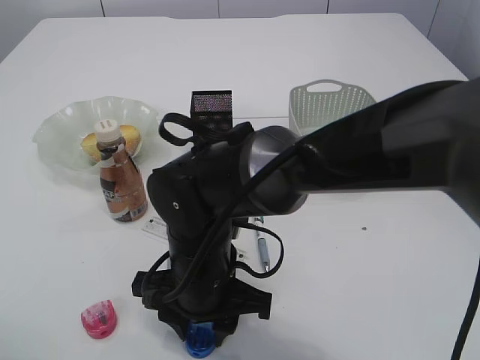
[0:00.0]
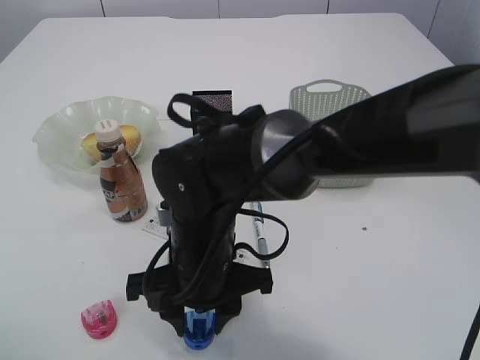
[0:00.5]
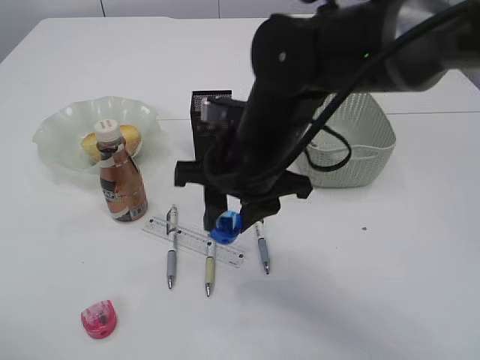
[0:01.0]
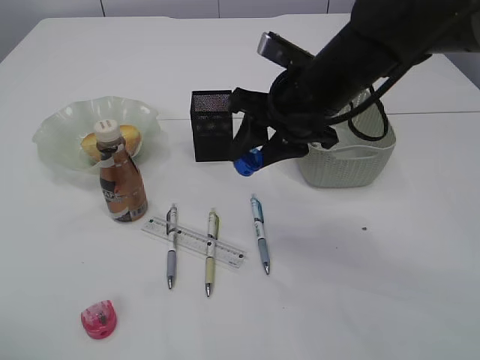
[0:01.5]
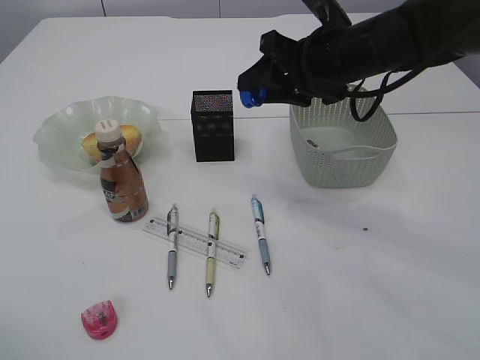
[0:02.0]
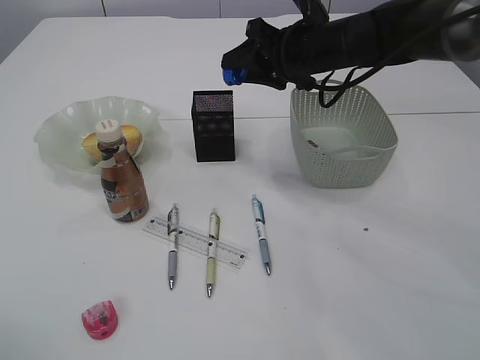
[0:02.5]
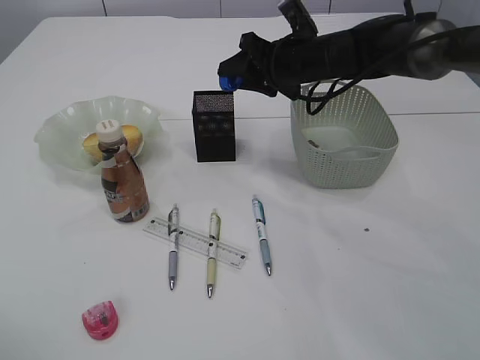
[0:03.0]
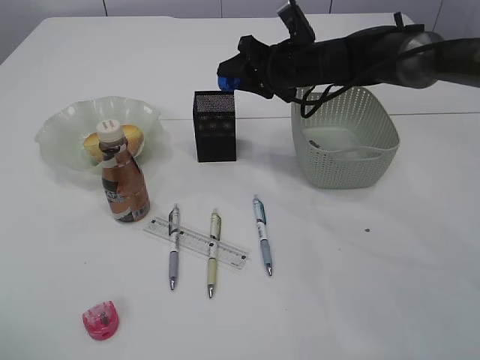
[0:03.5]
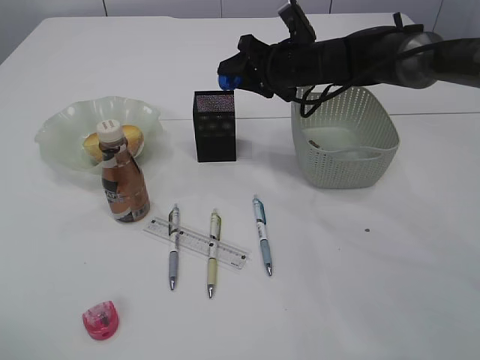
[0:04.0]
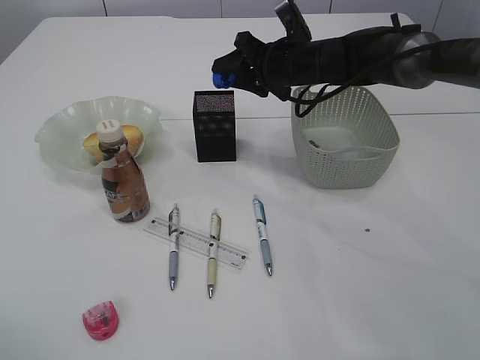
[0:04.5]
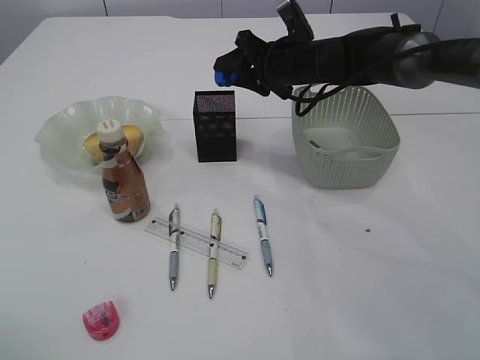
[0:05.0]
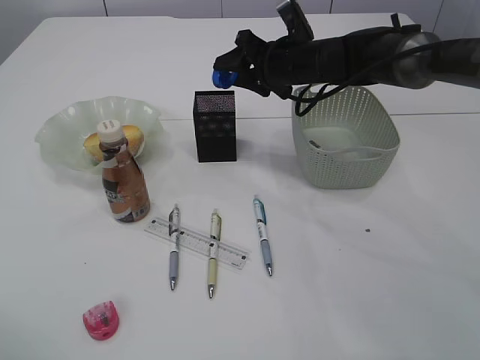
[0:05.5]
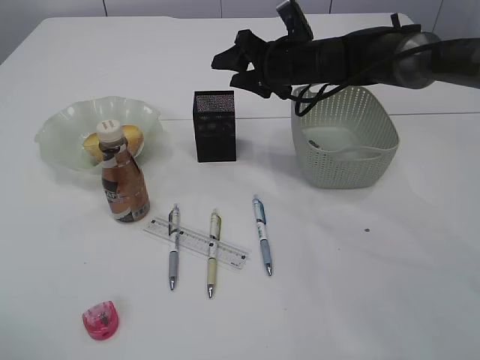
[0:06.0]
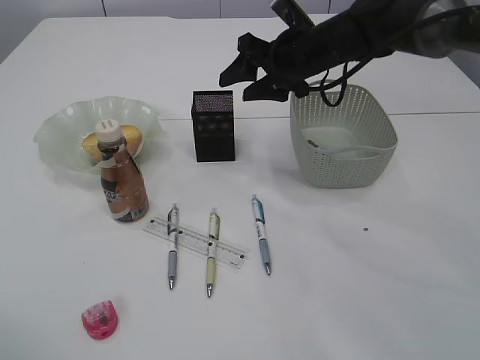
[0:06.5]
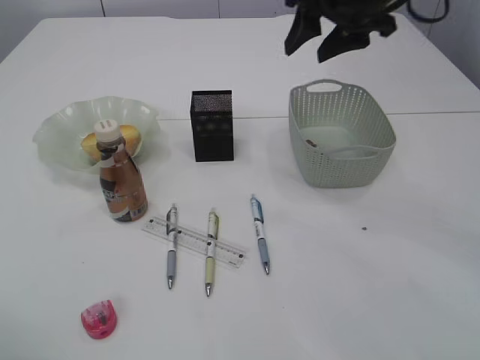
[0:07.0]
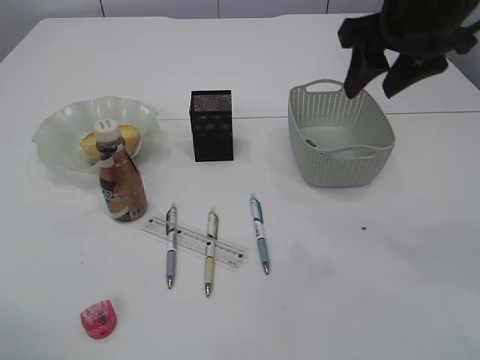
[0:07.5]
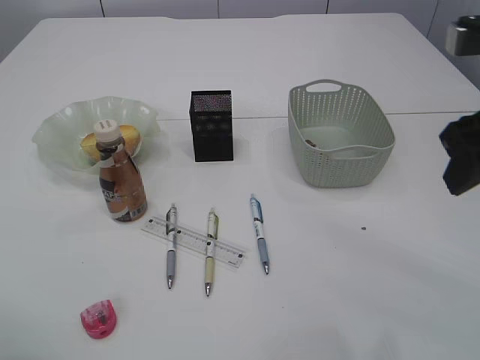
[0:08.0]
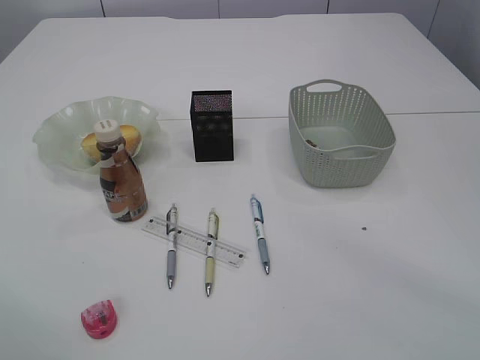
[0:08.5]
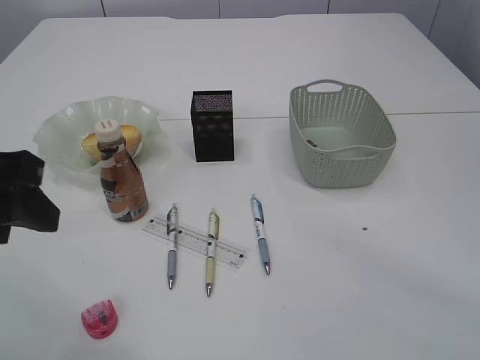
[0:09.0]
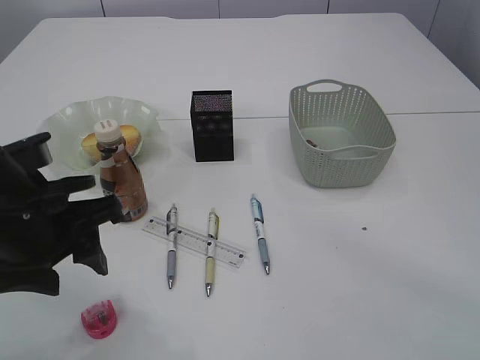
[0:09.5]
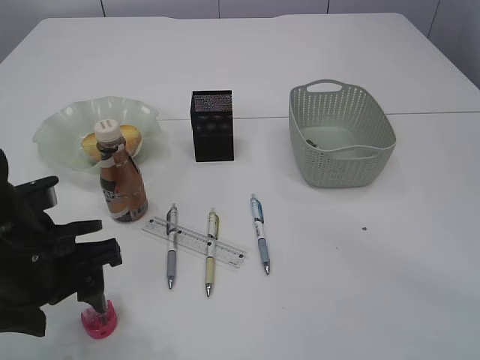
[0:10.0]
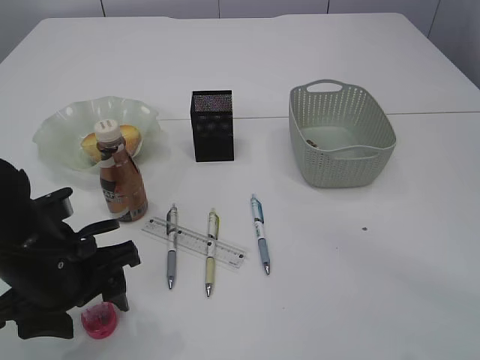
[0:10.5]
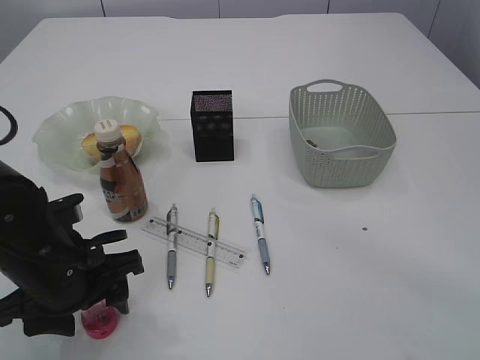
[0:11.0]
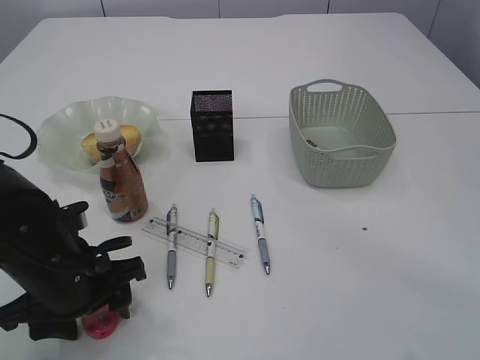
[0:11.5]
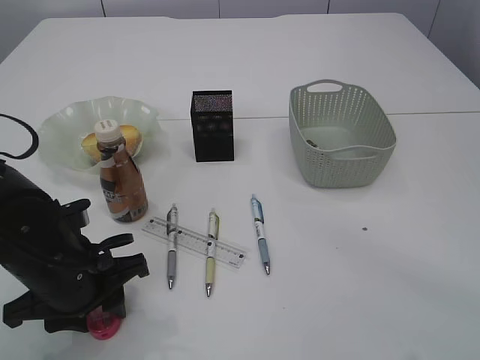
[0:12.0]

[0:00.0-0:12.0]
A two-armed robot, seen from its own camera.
Step, 1.0 to 6.0 s: Place the blue pencil sharpener into the pen holder.
0.0 to 2.0 s: The right gripper heads to the right, forward and upward, covering about 25 cm.
2.0 to 4.0 s: The right gripper heads forward and downward, covering some 10 cm.
4.0 to 6.0 s: Both grippers stay about where they are.
6.0 to 8.0 s: The right gripper shifts about 30 cm backward and to the right.
8.0 to 10.0 s: The left gripper heads downward and to the right, covering about 15 cm.
10.0 to 12.0 s: The left gripper shifts some 5 cm downward, and closes its fingers.

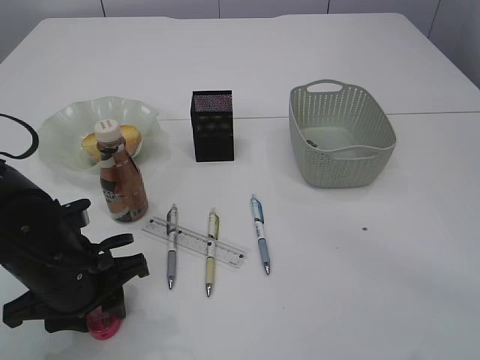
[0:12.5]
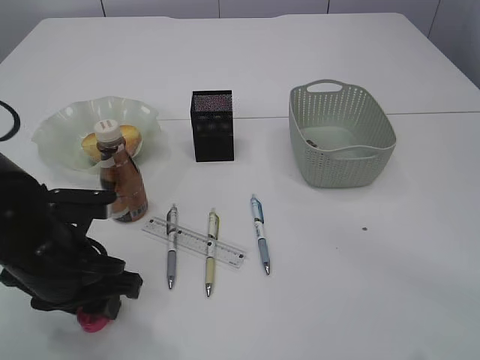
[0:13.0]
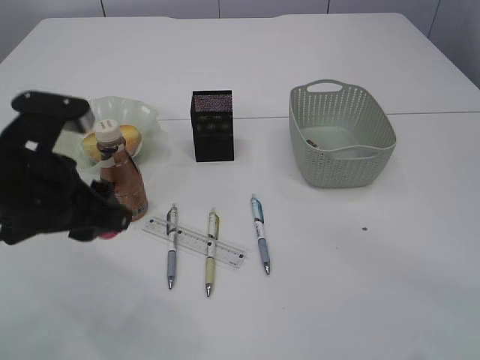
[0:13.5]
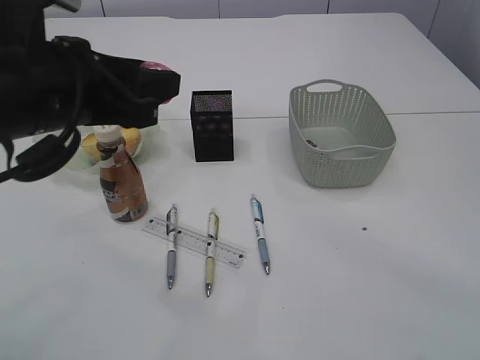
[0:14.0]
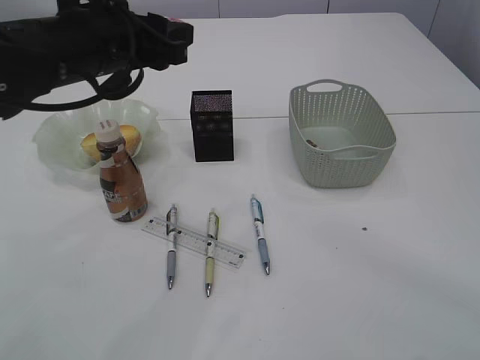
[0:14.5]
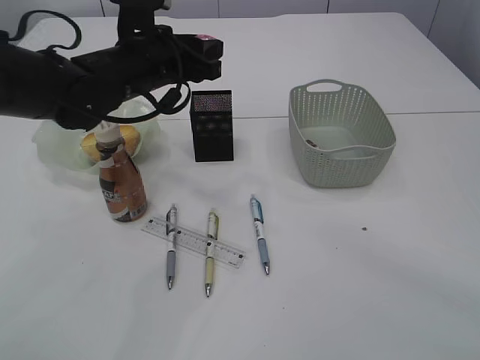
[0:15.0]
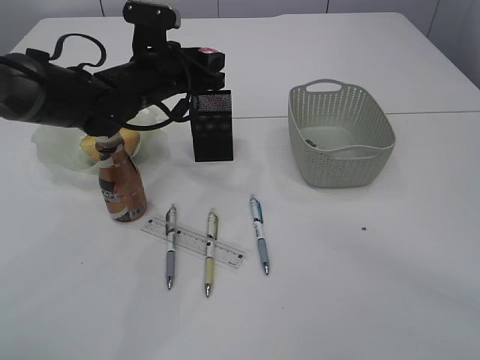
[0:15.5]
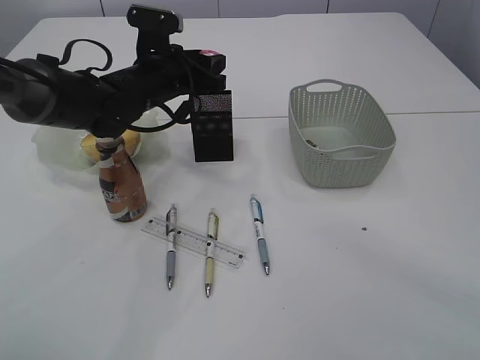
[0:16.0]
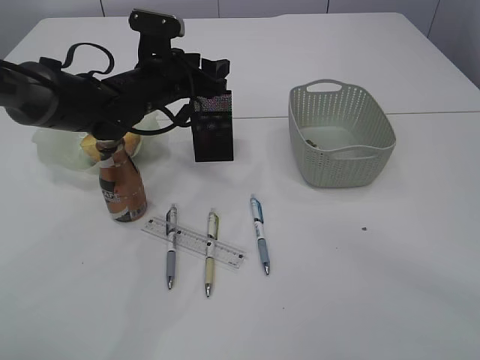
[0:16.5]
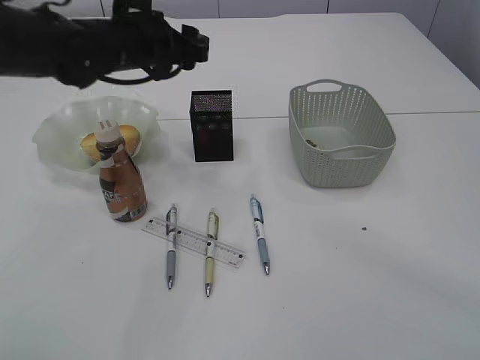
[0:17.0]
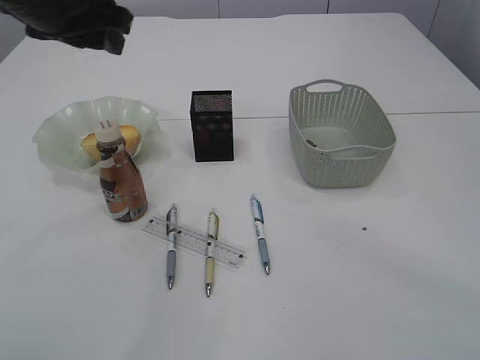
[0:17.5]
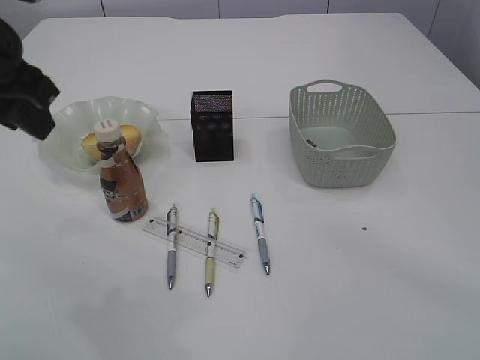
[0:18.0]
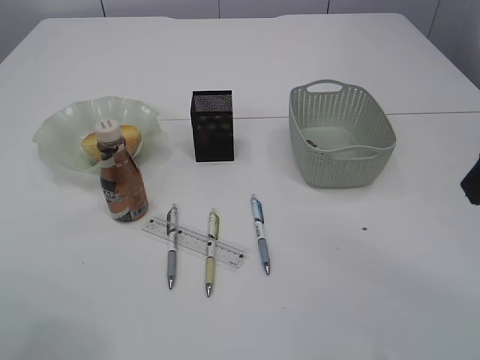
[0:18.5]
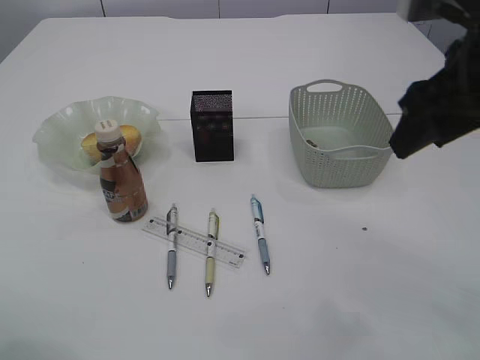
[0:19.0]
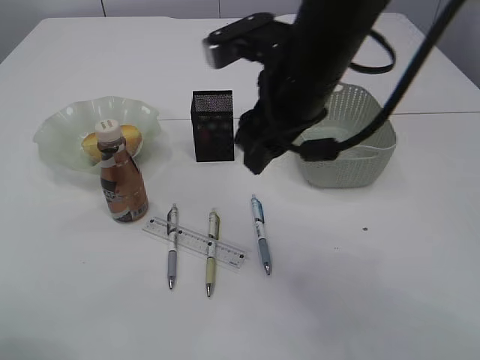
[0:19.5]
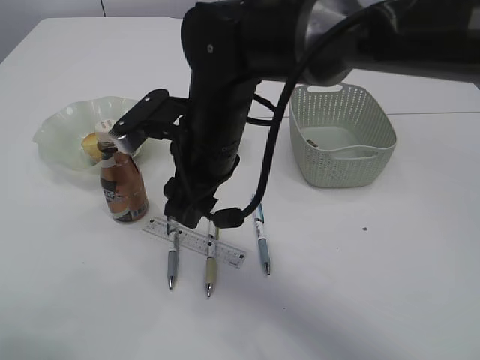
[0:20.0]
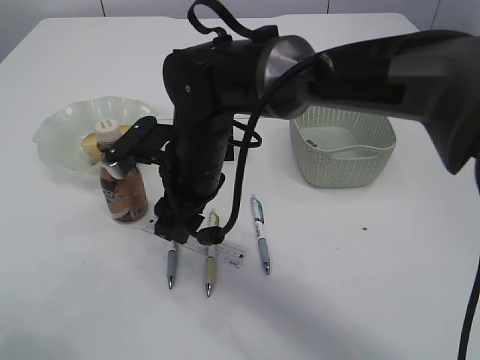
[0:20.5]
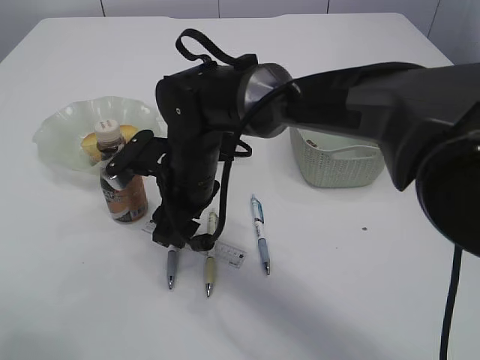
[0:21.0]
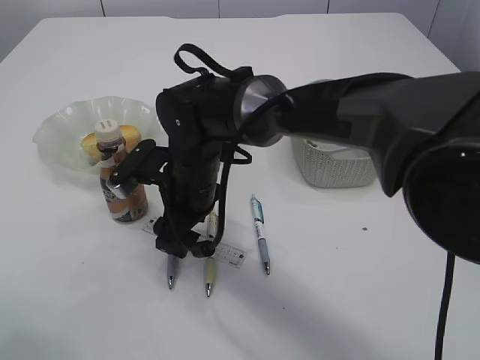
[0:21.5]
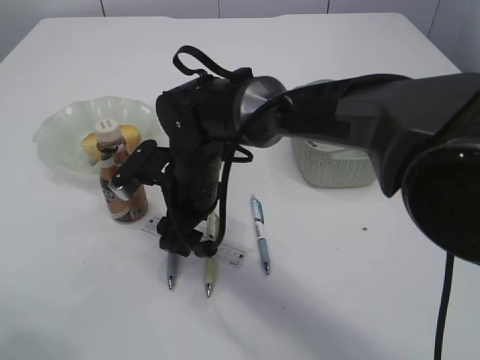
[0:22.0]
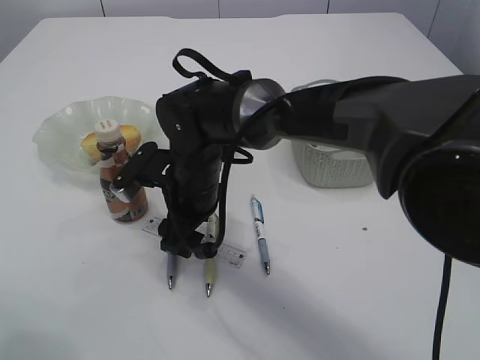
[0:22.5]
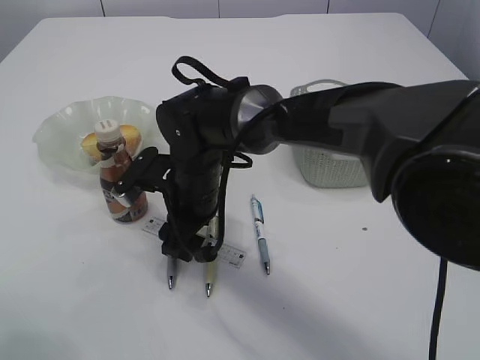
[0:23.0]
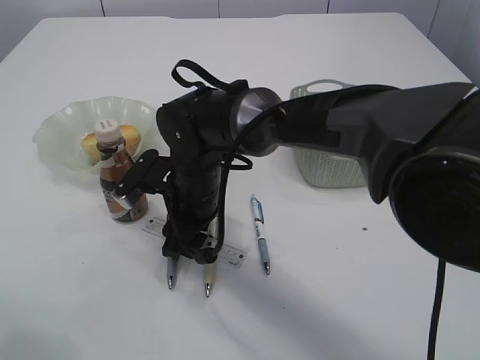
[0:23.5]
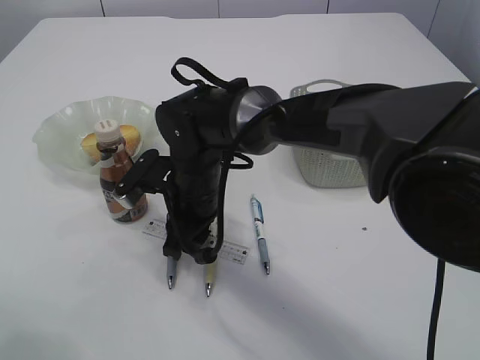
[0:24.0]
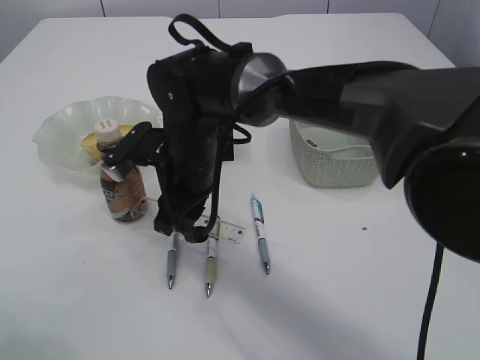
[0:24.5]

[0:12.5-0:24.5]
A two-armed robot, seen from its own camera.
Step, 13.5 to 16.5 s: Place the red pencil sharpener into the pen holder.
12.5 to 14.5 s: The left gripper shifts some 20 cm upward and forward.
14.5 to 16.5 s: The left gripper travels forward and downward by some 15 cm, and opens up.
16.5 to 18.5 s: The left gripper moves backward, to the left and upward, roughly 30 cm, and closes its fingers.
18.5 to 20.5 s: The left gripper ends up about 5 cm from where it was; the right gripper moves to the left, forward and downward, roughly 35 cm.
22.5 to 24.5 s: The right gripper closes its fingers.

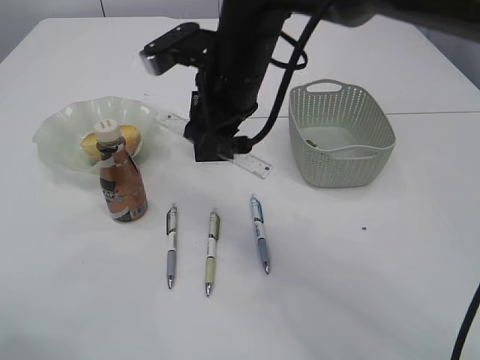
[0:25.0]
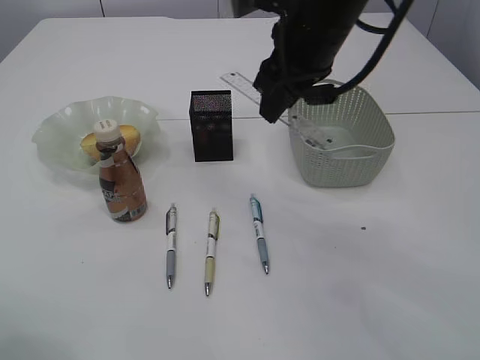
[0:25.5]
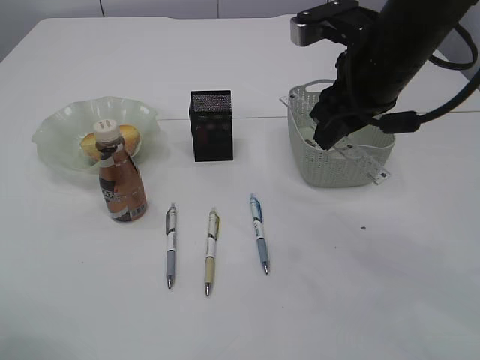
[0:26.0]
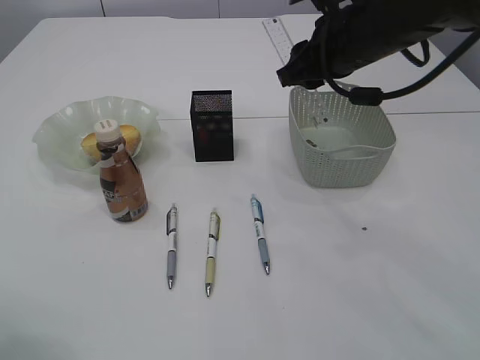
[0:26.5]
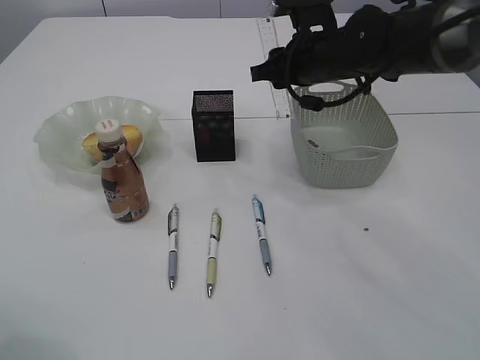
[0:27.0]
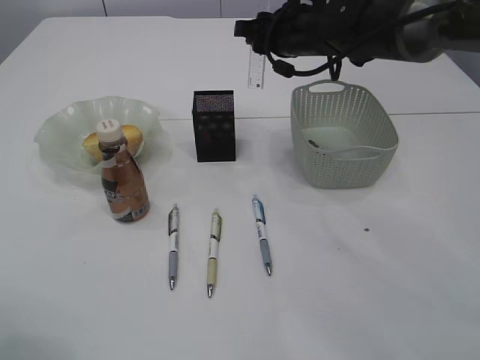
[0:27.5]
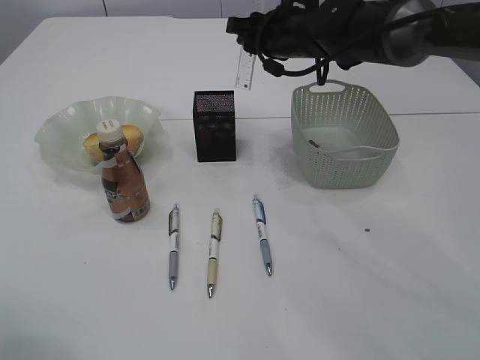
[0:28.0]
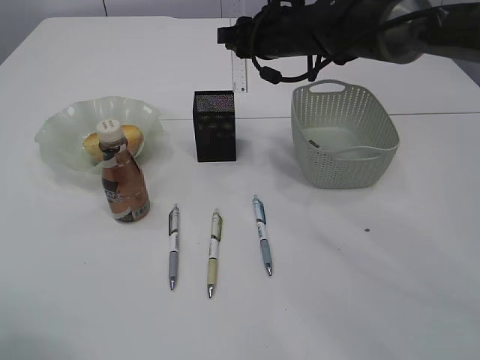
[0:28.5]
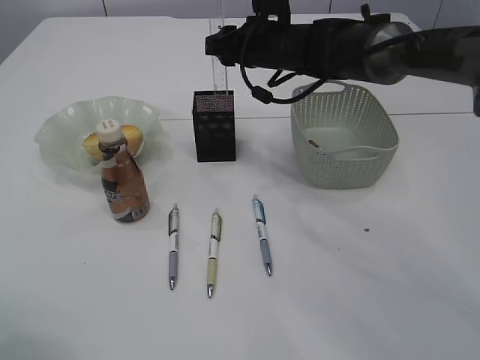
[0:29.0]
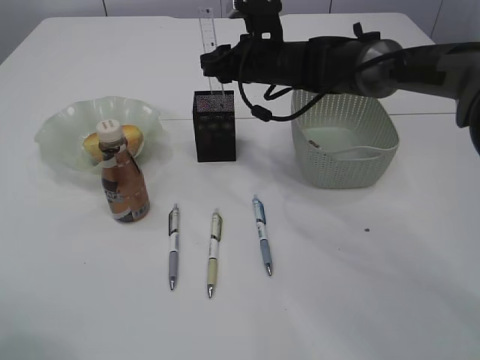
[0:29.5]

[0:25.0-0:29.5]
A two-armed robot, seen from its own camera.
25.0 to 27.0 s: The right gripper moves to the right and forward, about 15 cm.
27.0 to 29.5 s: The right gripper is displaced forward and to the left by roughly 10 cm.
